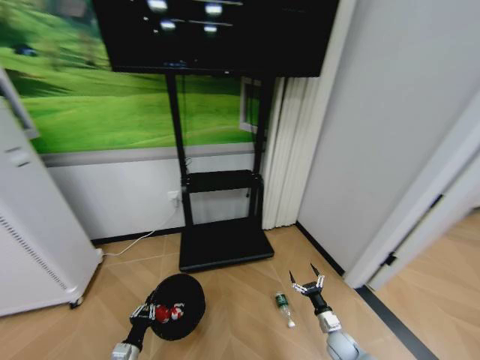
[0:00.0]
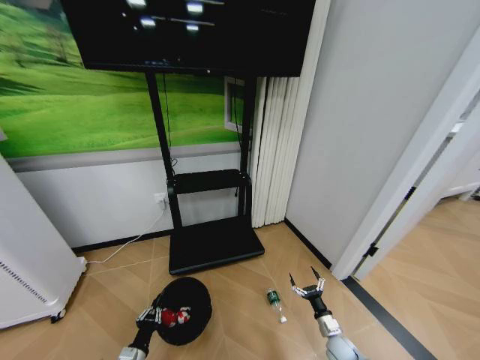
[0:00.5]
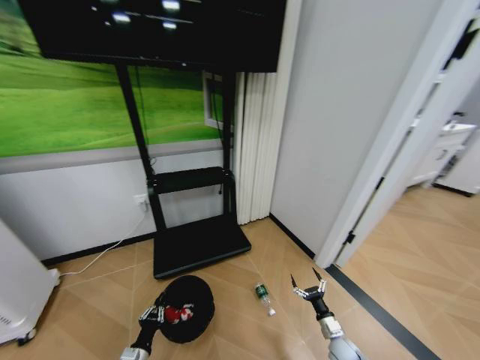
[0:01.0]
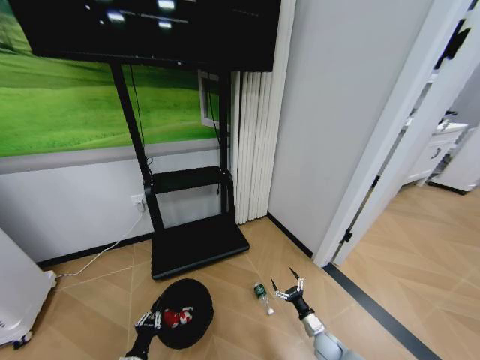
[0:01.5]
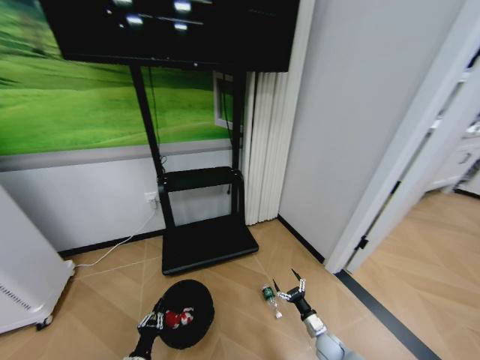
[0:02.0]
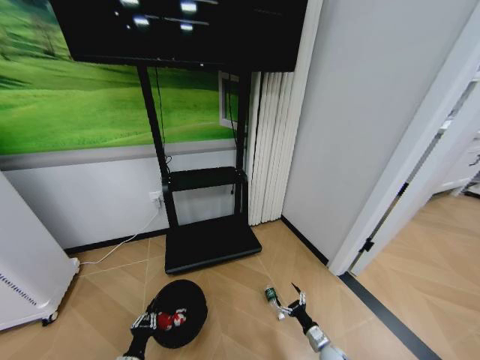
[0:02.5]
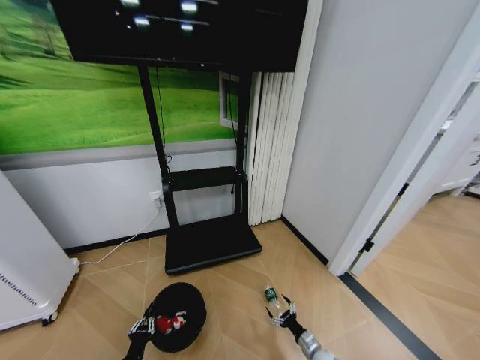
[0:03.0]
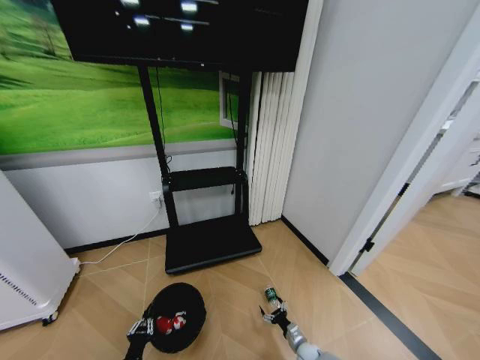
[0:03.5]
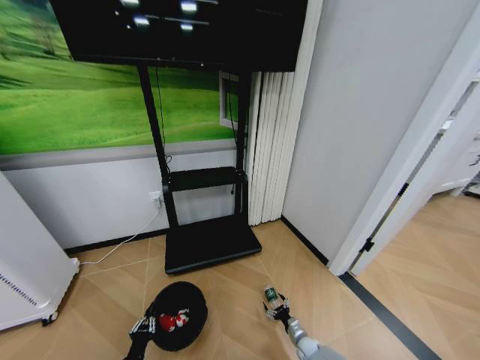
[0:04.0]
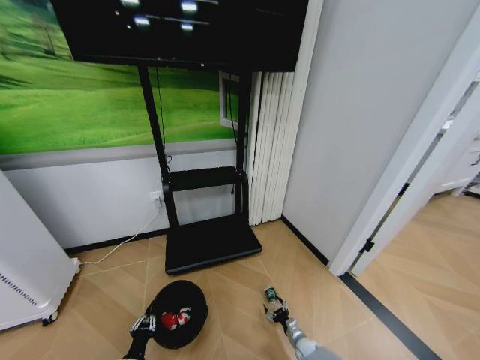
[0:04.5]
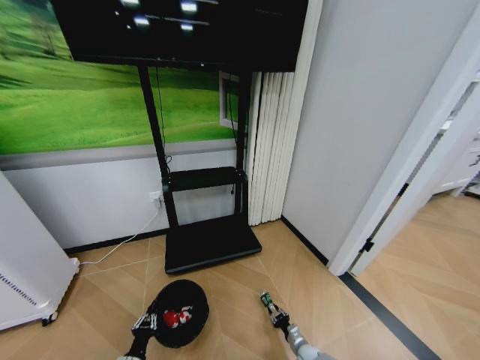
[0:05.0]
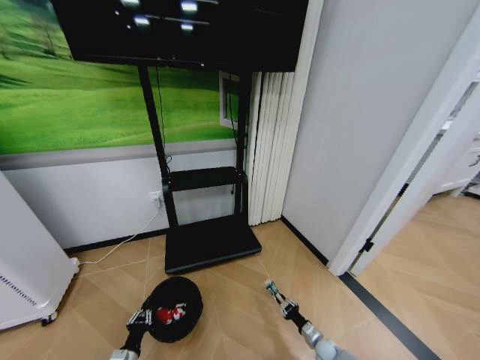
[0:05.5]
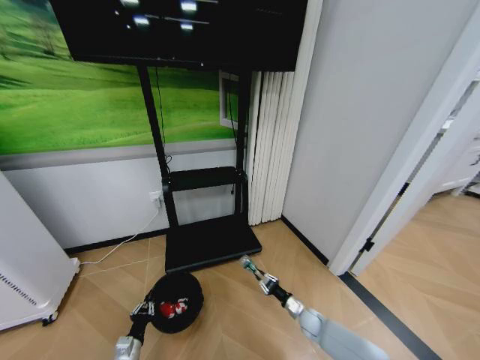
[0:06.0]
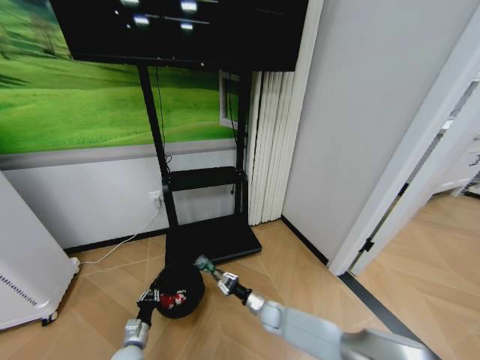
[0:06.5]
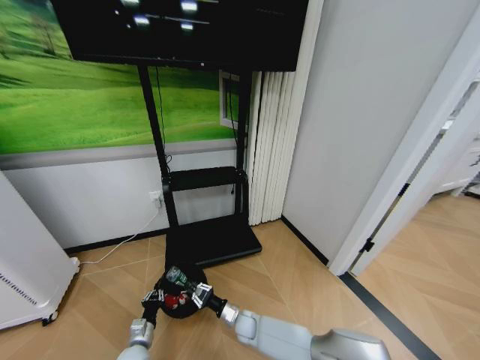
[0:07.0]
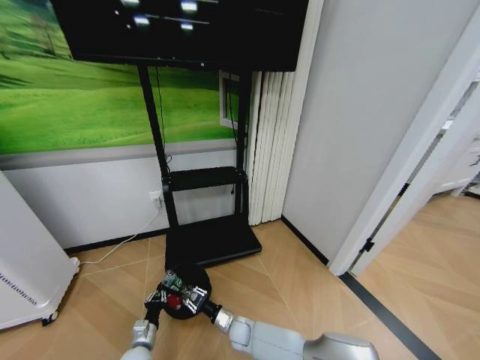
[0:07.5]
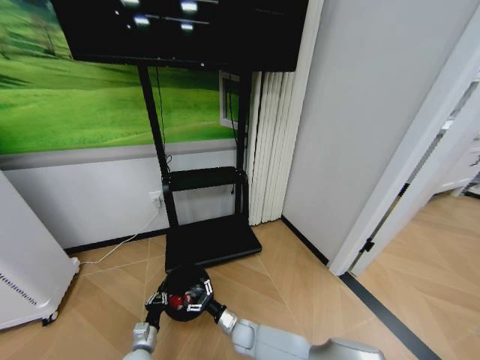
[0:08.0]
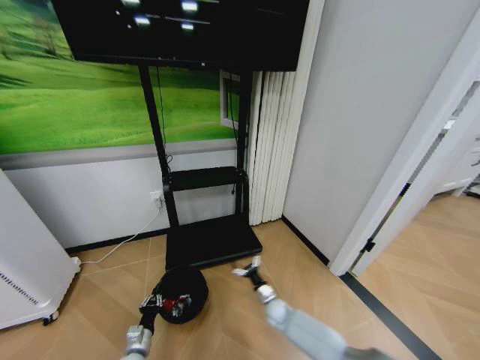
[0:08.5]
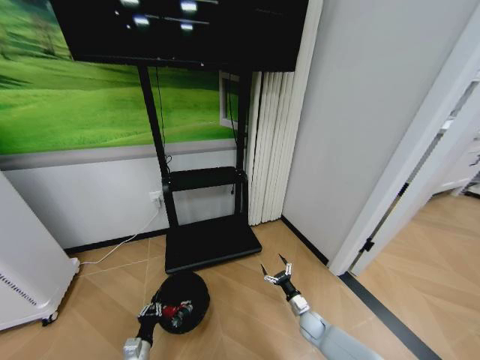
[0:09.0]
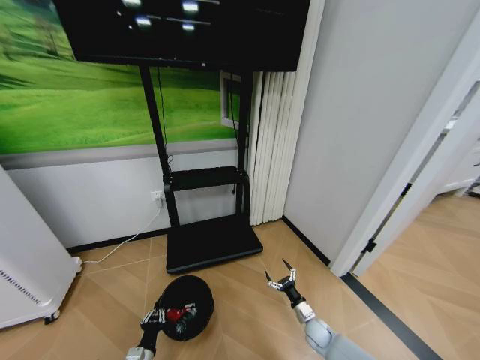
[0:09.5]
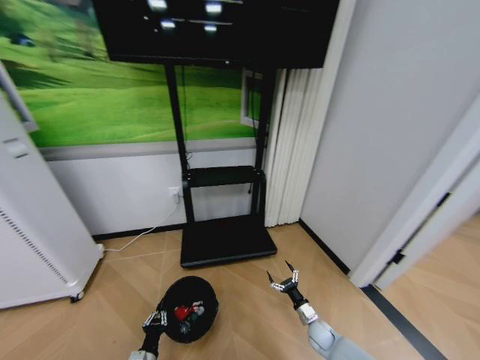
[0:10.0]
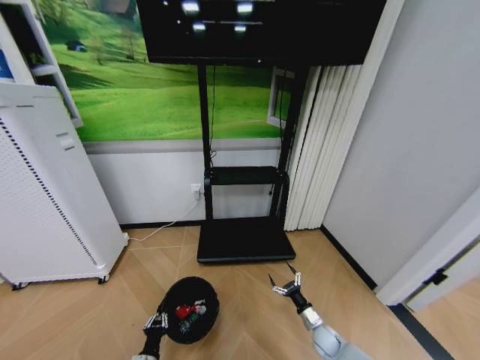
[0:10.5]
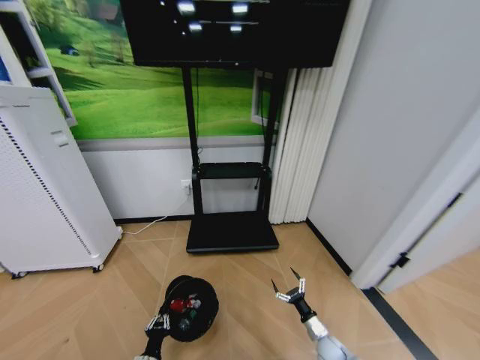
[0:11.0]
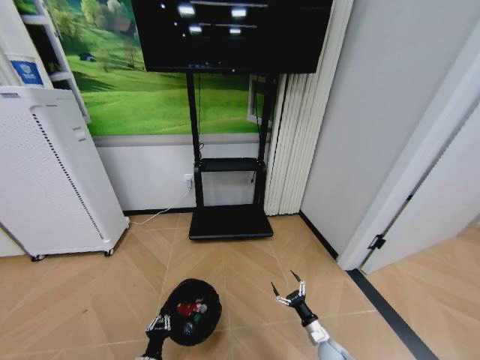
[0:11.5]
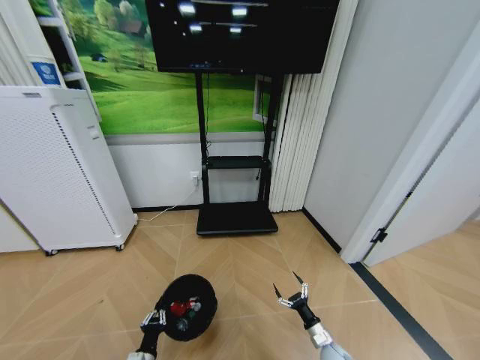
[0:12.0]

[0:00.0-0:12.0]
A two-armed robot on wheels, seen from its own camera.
Task of the whole recording: Pick up the trash bin and place the garbage on the floor into it.
0:02.0 to 0:04.0: The right gripper travels downward by some 10 cm.
0:04.0 to 0:06.0: The right gripper heads upward and forward, covering some 15 cm, and closes; the left gripper is displaced forward by about 5 cm.
0:06.0 to 0:08.0: The left gripper moves approximately 5 cm. The right gripper moves to the left, some 25 cm, and opens up.
0:08.0 to 0:10.0: The right gripper travels to the right by about 30 cm, while the left gripper is displaced backward by about 5 cm.
0:10.0 to 0:12.0: The right gripper goes approximately 5 cm backward.

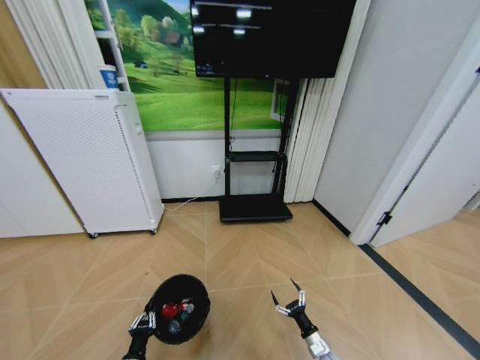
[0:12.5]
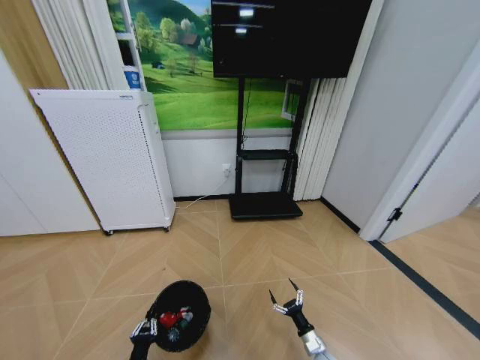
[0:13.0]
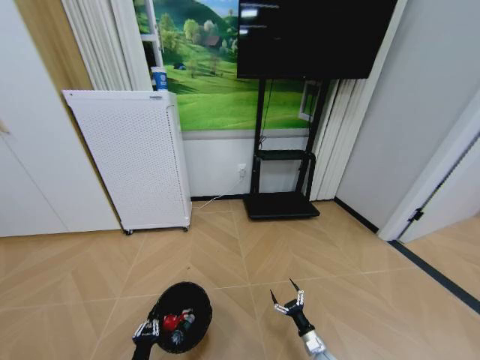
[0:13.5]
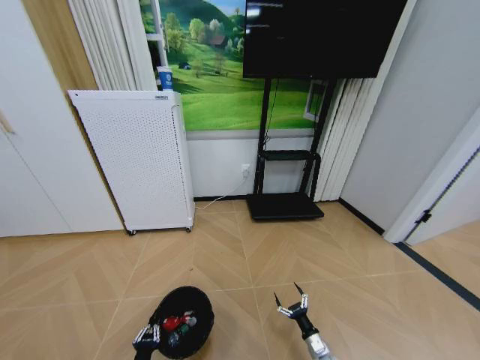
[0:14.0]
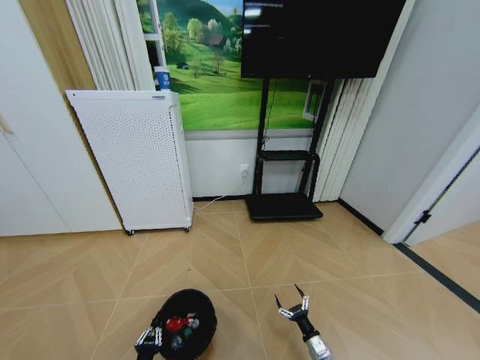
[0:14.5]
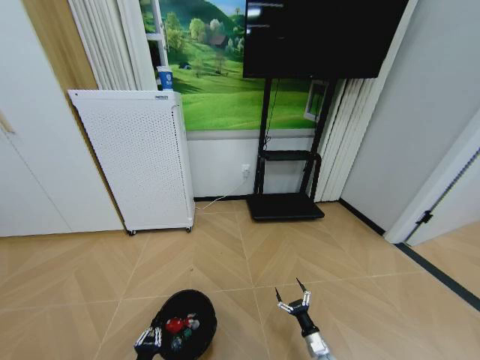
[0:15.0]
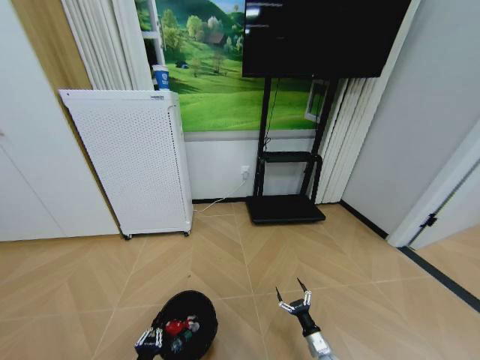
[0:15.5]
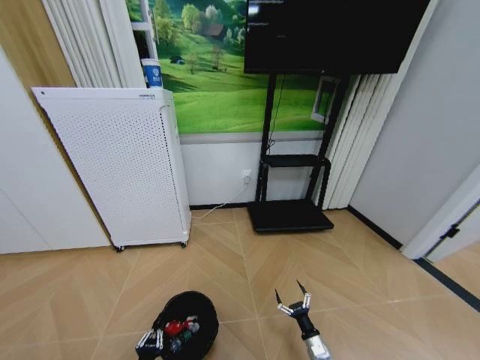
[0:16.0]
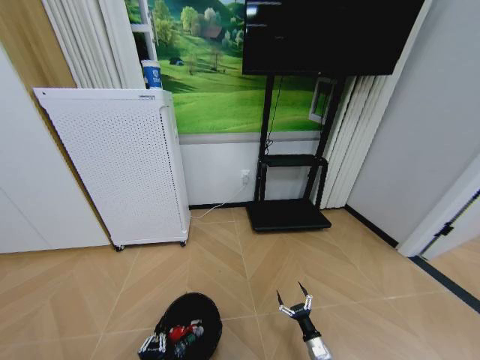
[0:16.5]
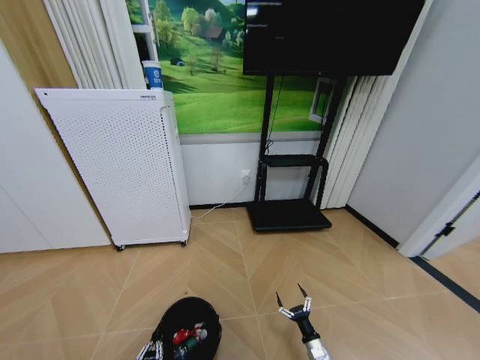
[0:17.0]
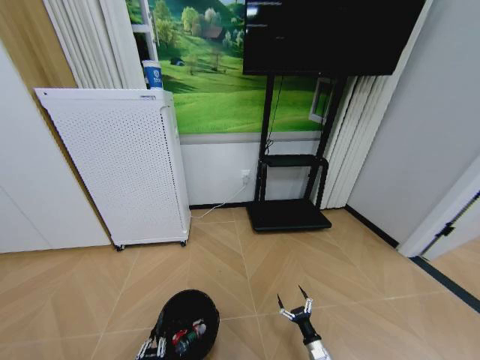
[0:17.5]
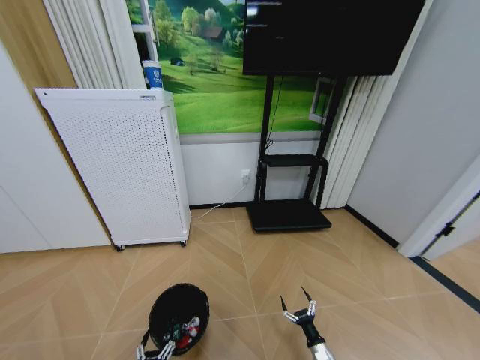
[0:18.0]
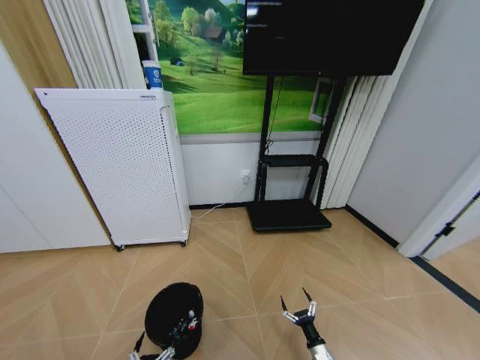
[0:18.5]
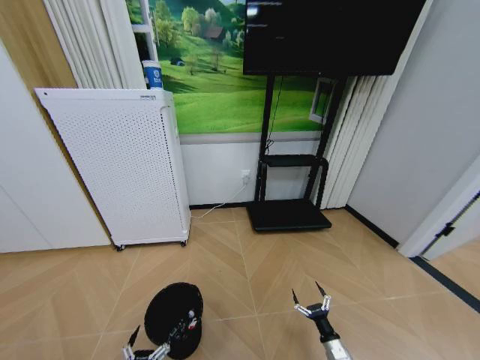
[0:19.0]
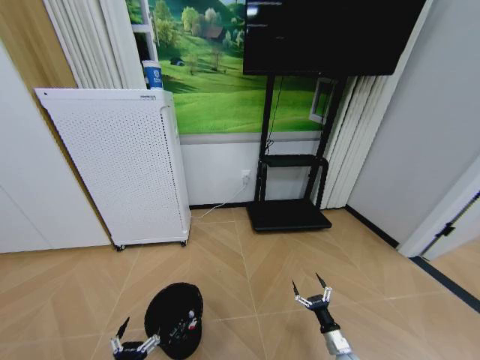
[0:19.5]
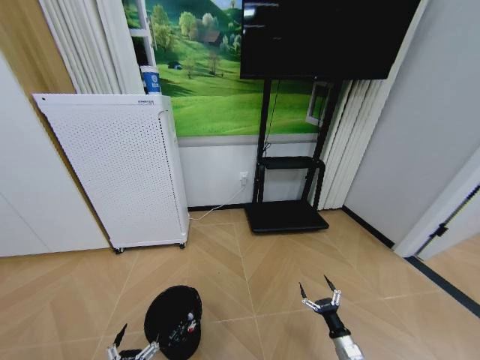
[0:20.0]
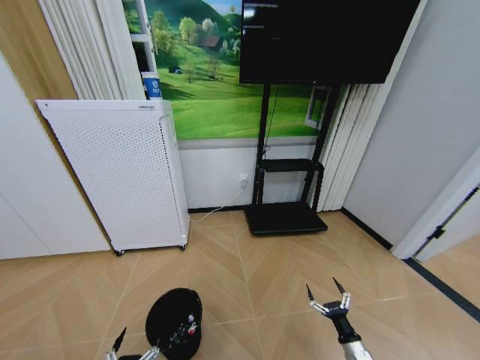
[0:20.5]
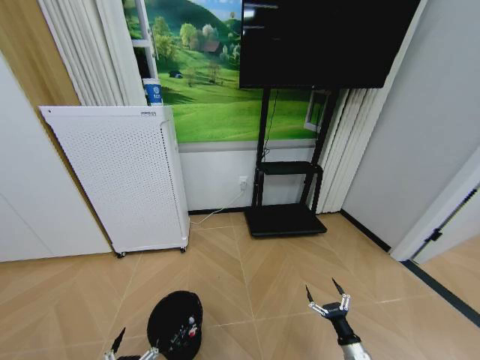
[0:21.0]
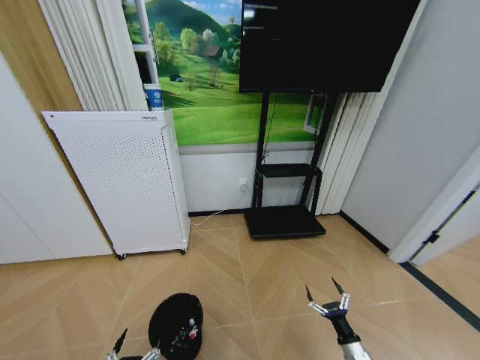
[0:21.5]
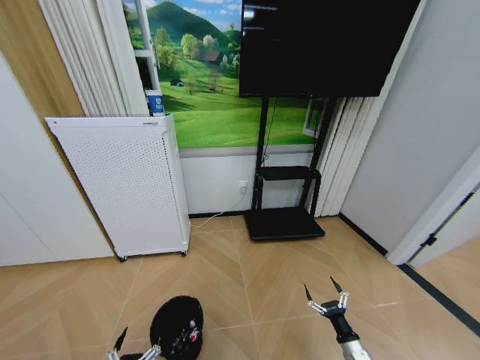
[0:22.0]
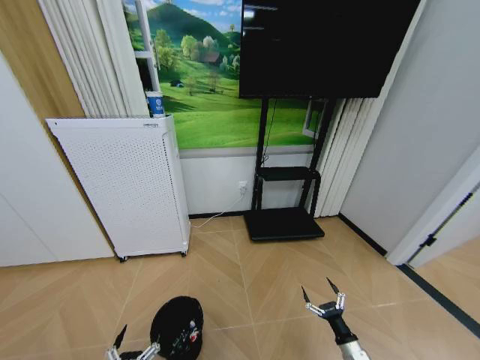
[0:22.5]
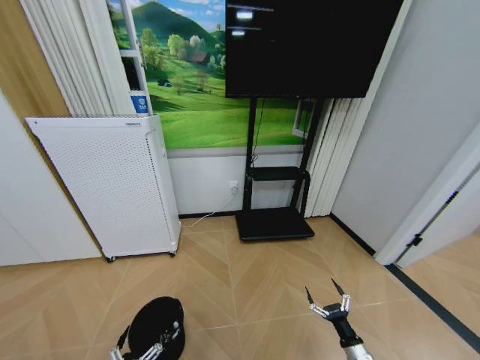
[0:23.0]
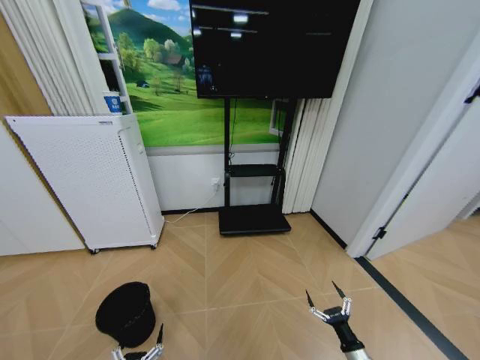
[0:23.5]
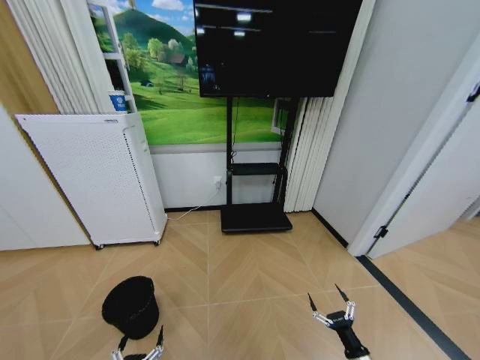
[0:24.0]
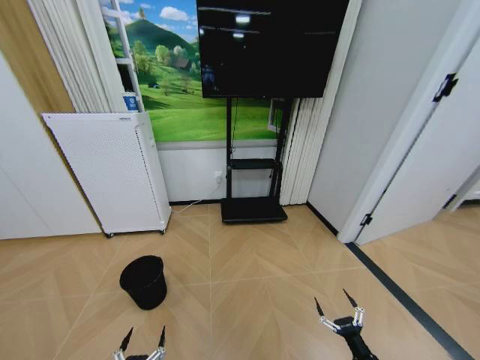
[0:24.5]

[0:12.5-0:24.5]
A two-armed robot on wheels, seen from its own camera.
Task of the whole recording: Pick up the trash bin and place the garbage on the floor into it.
0:16.5 to 0:18.5: The left gripper opens.
0:18.5 to 0:20.5: The right gripper shifts roughly 10 cm upward and to the right. The left gripper travels upward by some 10 cm.
0:20.5 to 0:22.5: The grippers make only small movements.
0:22.5 to 0:24.5: The right gripper heads backward, covering about 5 cm.

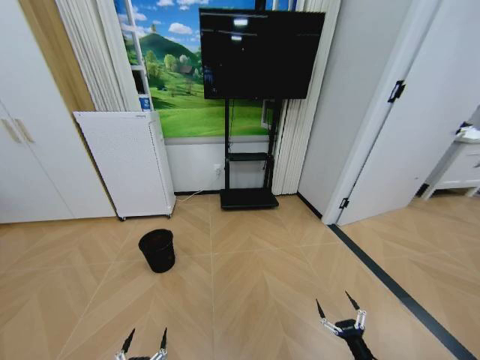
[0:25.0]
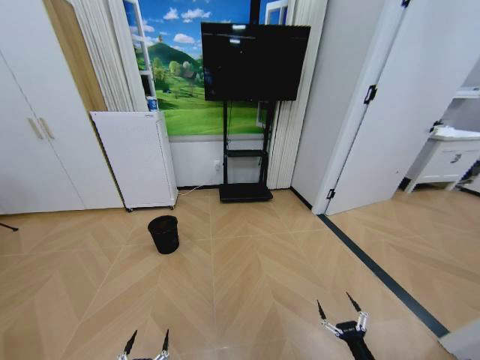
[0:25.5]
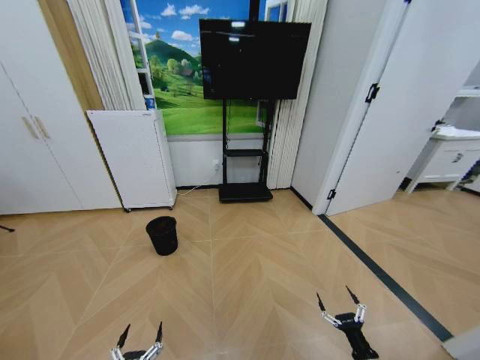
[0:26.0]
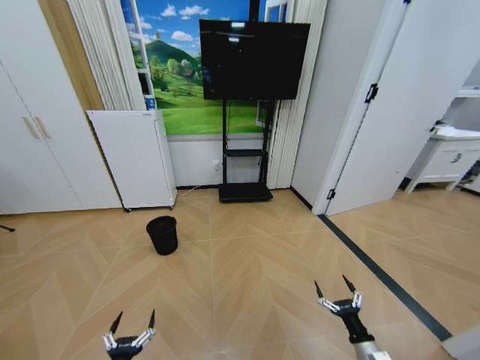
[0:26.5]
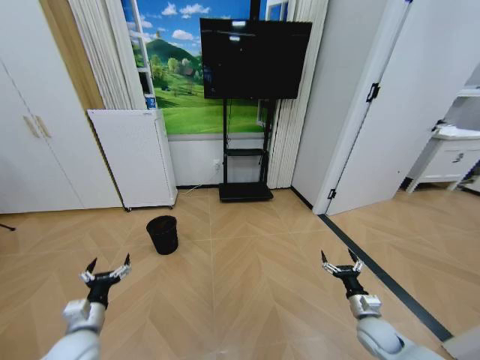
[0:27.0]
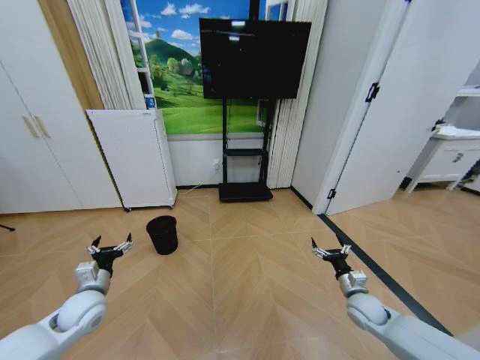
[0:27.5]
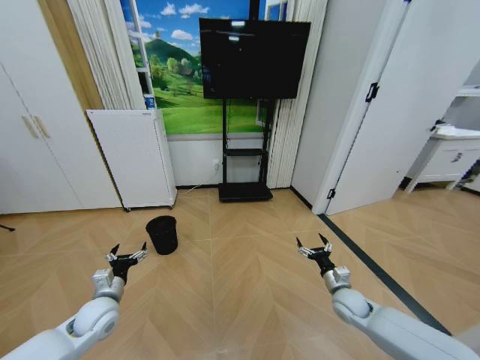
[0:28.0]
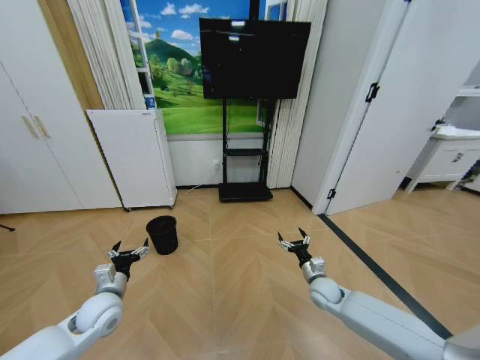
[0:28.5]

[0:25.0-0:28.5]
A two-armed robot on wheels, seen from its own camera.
Task of the whole recording: Pick up the trash bin and place the garbage on the floor into it.
0:25.0 to 0:27.0: The right gripper goes roughly 15 cm forward and upward. The left gripper heads forward, upward and to the left, covering some 25 cm.
0:27.0 to 0:28.5: The right gripper goes approximately 15 cm forward and to the left. Meanwhile the left gripper moves forward, about 10 cm.
